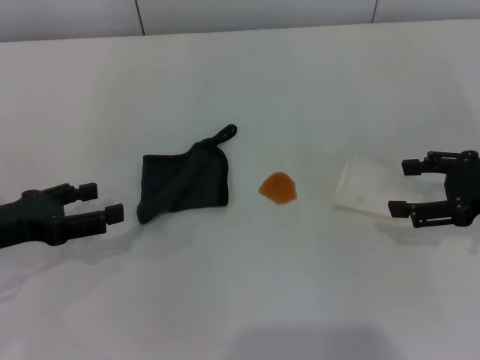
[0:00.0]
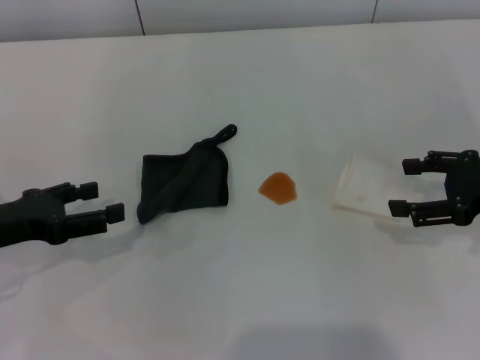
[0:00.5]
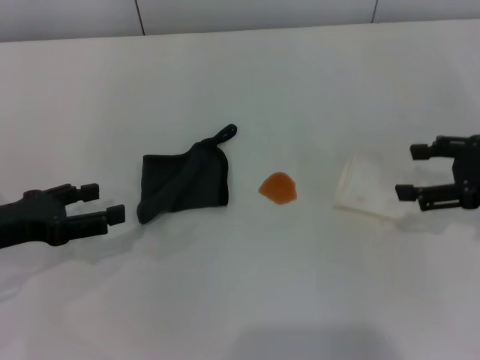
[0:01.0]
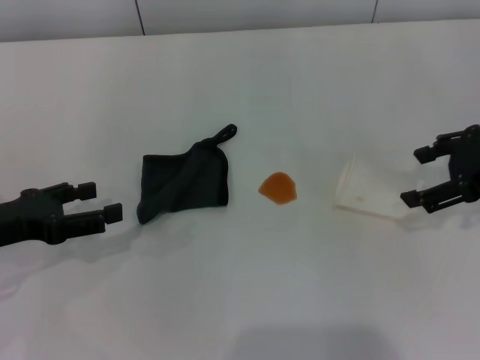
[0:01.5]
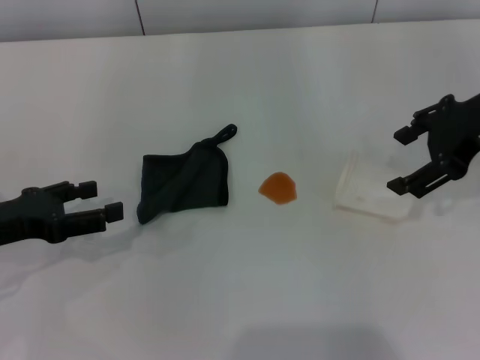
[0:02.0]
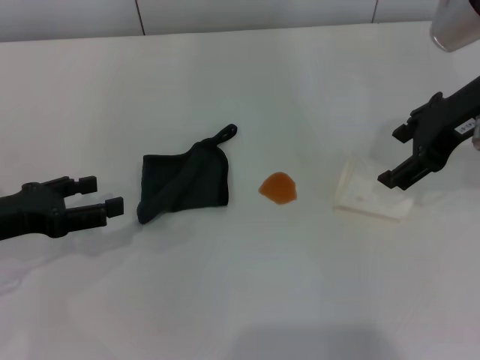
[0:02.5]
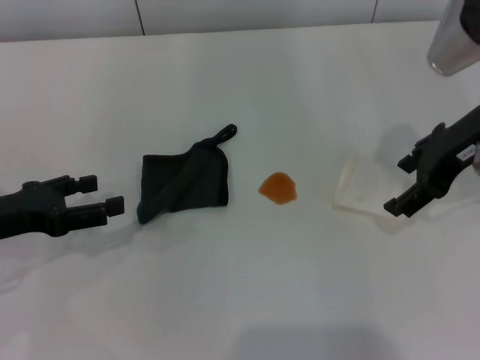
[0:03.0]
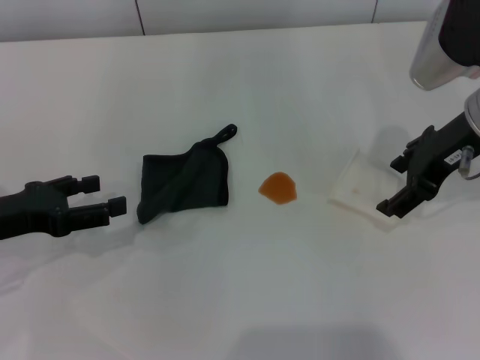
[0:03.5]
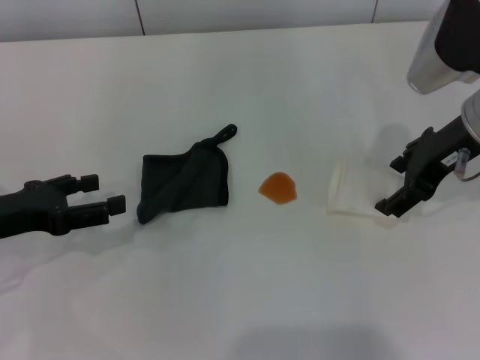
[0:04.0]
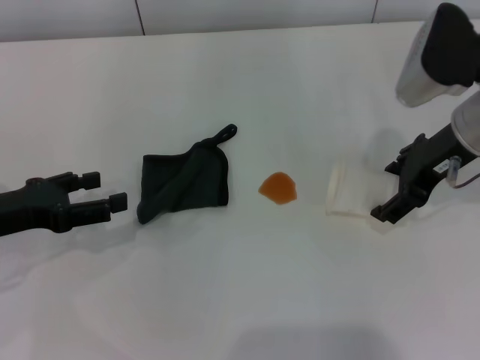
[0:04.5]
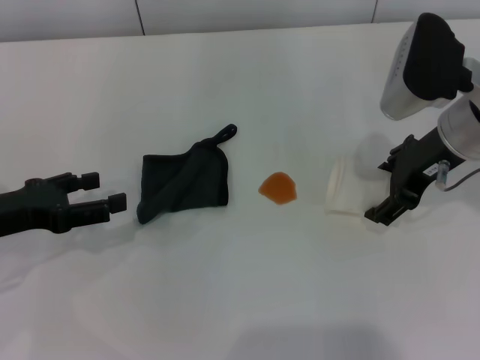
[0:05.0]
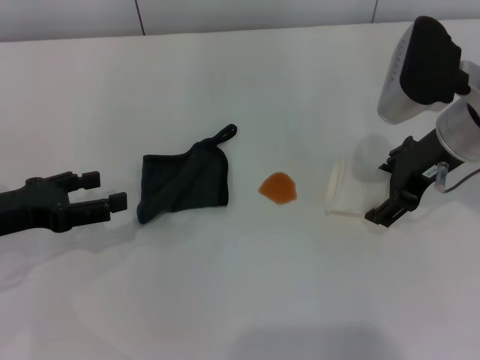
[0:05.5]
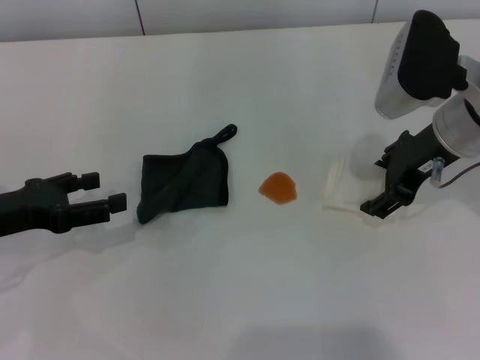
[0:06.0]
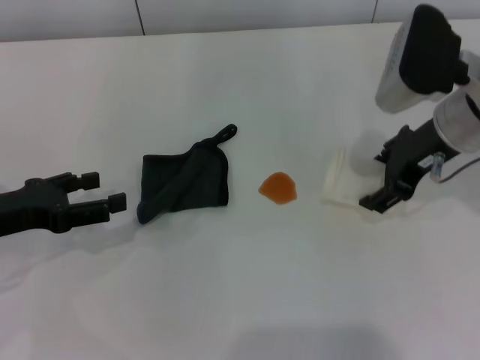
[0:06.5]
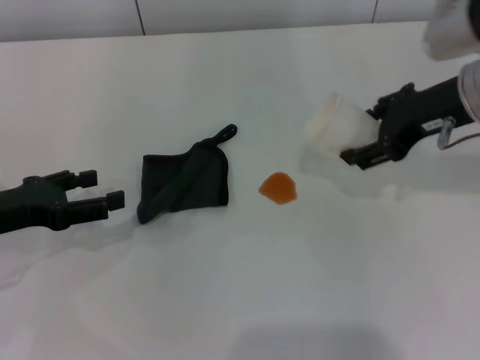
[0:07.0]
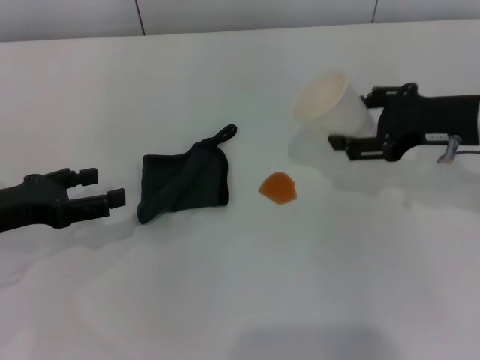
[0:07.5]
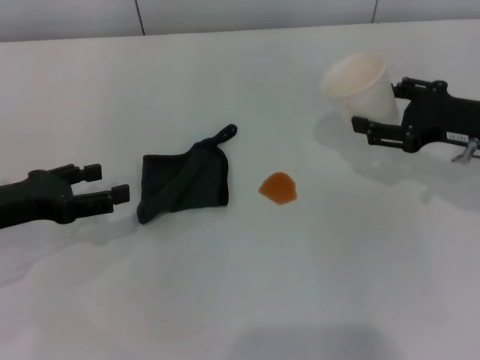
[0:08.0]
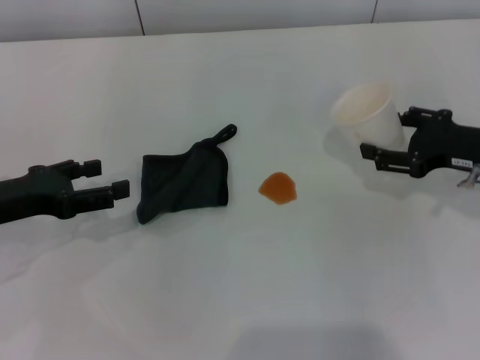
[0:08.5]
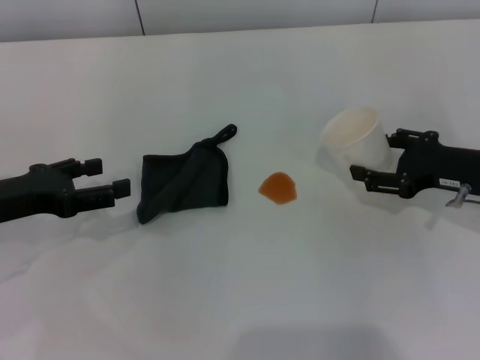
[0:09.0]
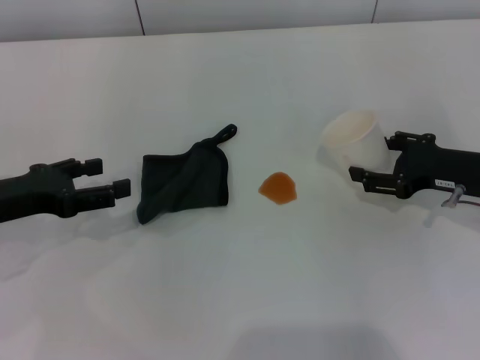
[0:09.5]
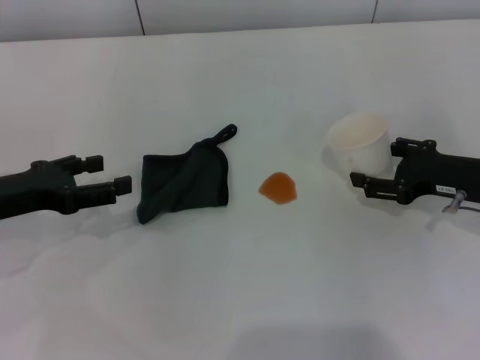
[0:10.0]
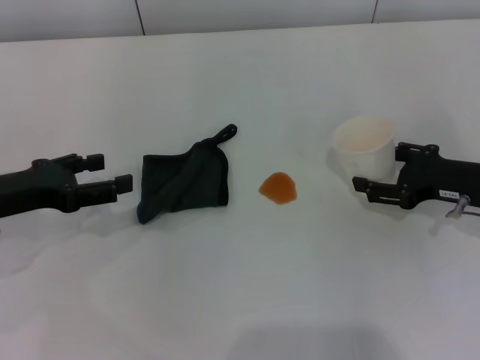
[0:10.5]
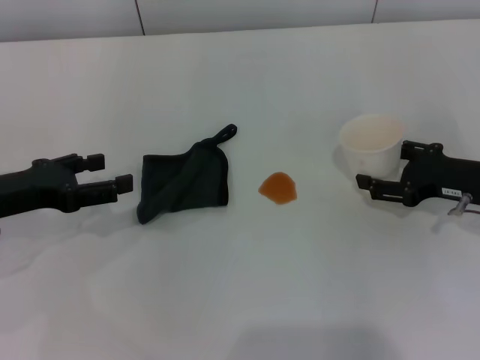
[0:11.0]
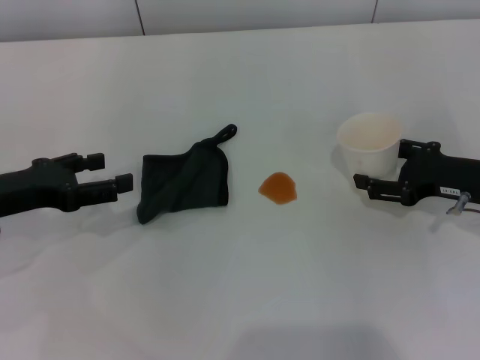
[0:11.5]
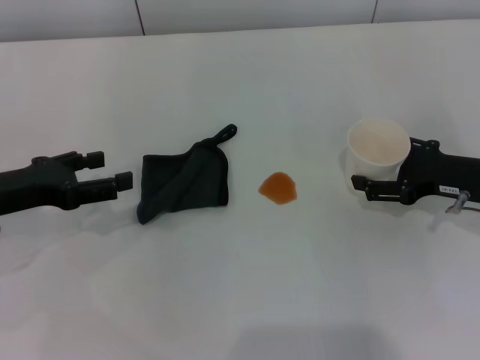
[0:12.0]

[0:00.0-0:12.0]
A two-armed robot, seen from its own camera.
Step, 0:00.0 to 0:06.0: Grasp the paper cup with the right gripper.
0:00.0 to 0:02.0: The right gripper goes roughly 15 cm upward and to the left.
0:02.0 to 0:04.0: The right gripper changes place by approximately 5 cm.
0:04.0 to 0:06.0: The right gripper closes up.
0:06.0 to 0:08.0: The right gripper shifts some 10 cm to the right.
0:08.0 to 0:10.0: The right gripper travels downward by approximately 5 cm.
0:10.0 to 0:12.0: The right gripper opens its fingers.

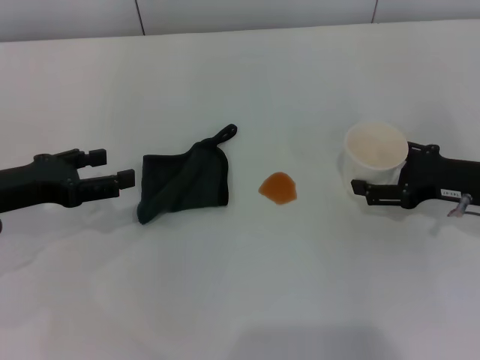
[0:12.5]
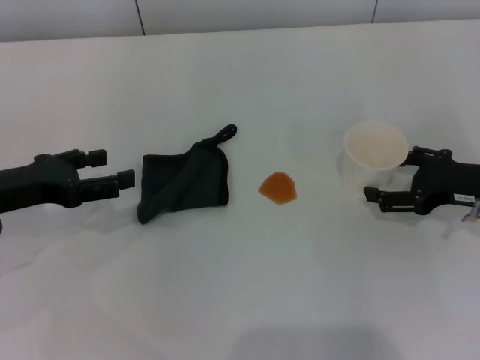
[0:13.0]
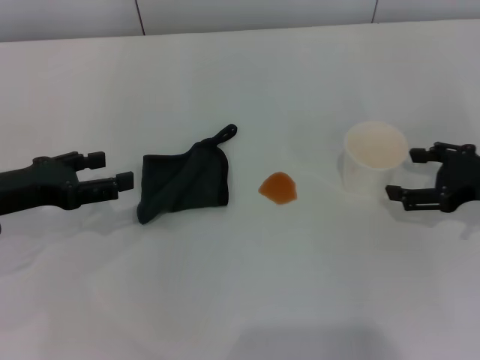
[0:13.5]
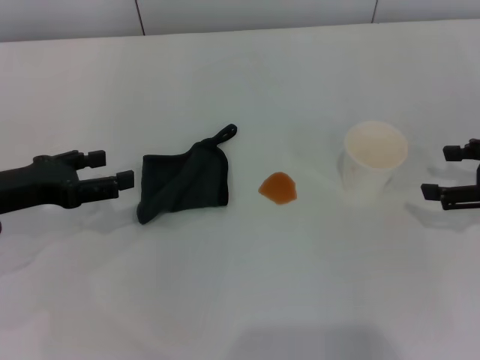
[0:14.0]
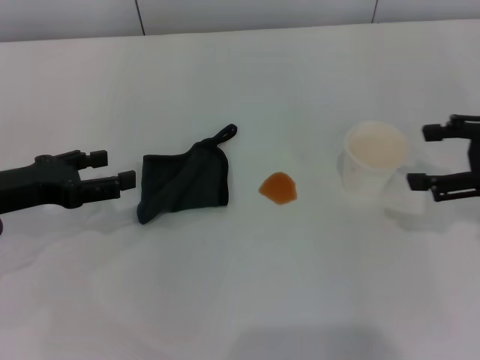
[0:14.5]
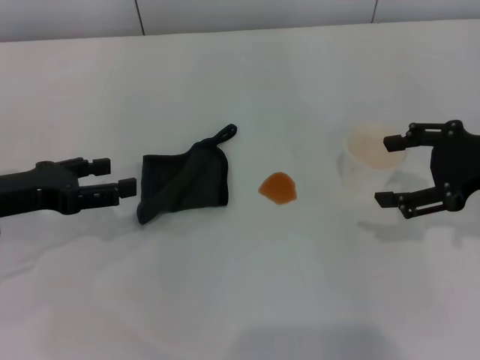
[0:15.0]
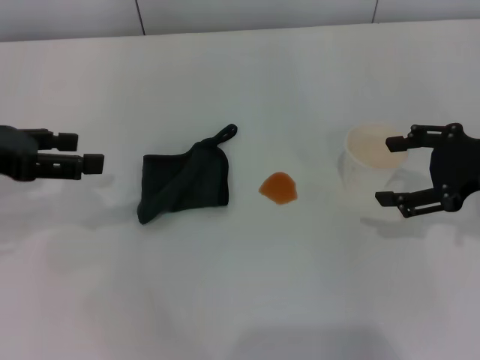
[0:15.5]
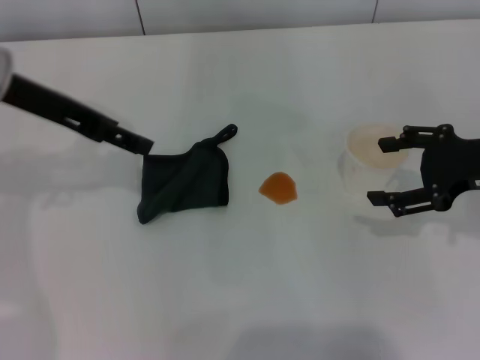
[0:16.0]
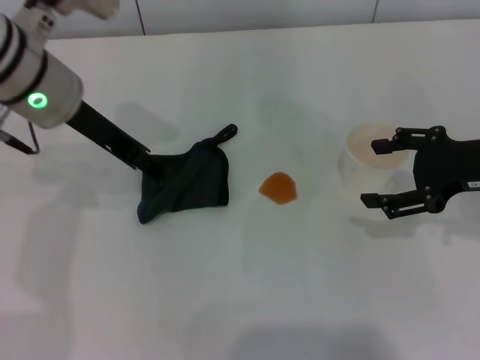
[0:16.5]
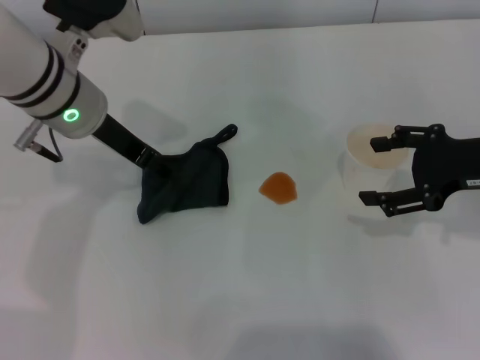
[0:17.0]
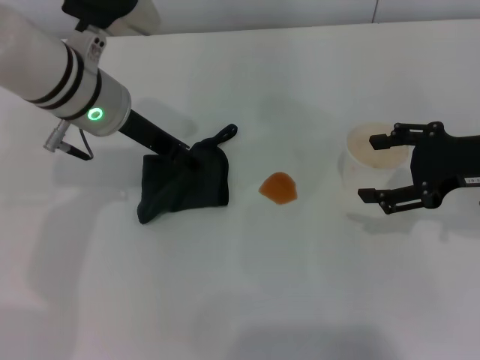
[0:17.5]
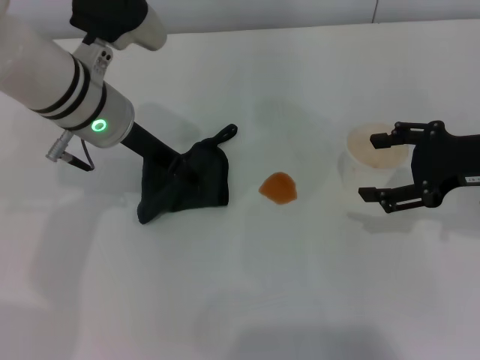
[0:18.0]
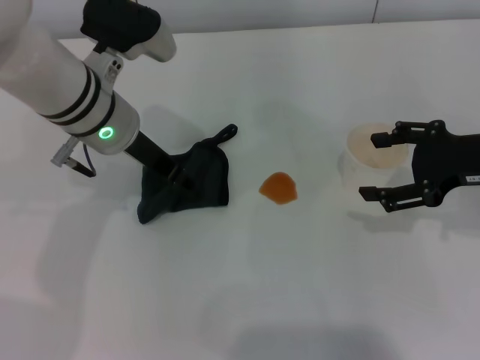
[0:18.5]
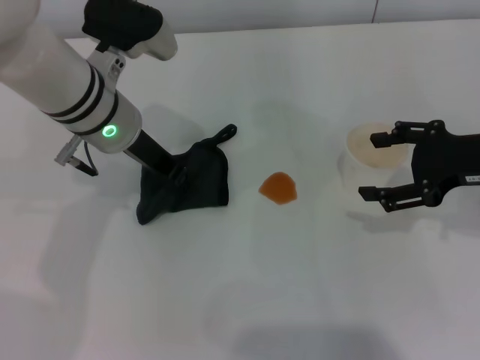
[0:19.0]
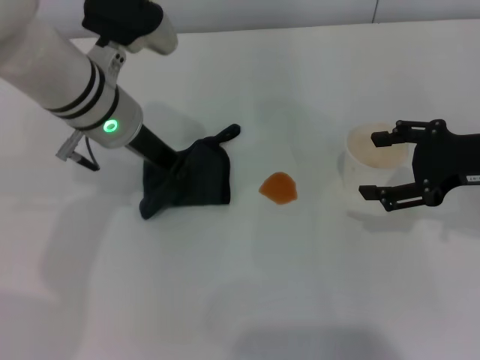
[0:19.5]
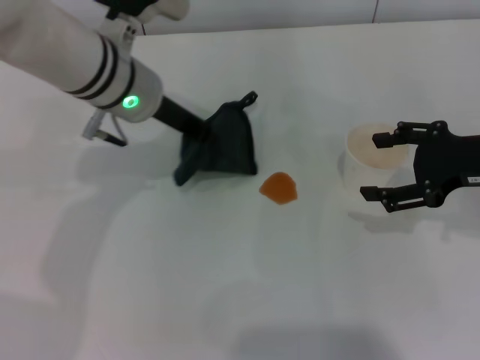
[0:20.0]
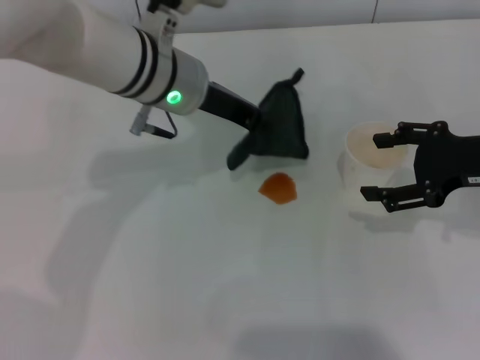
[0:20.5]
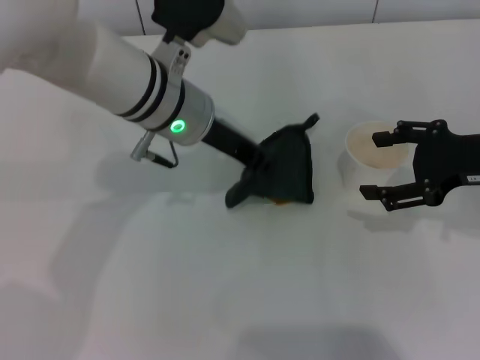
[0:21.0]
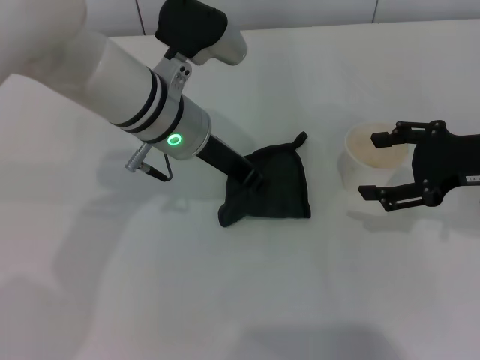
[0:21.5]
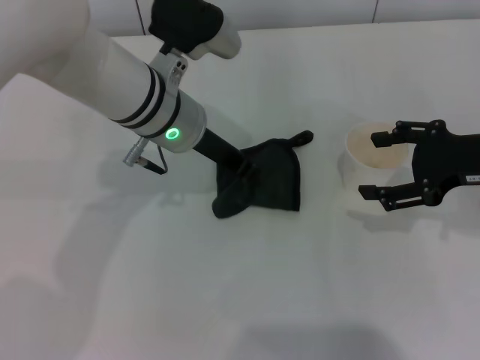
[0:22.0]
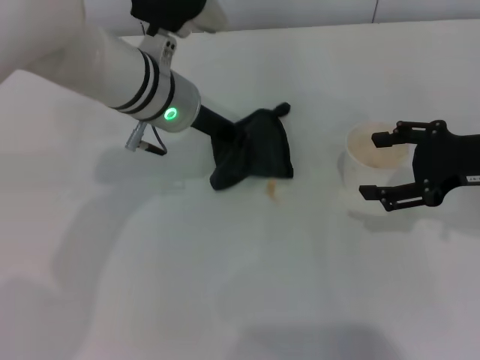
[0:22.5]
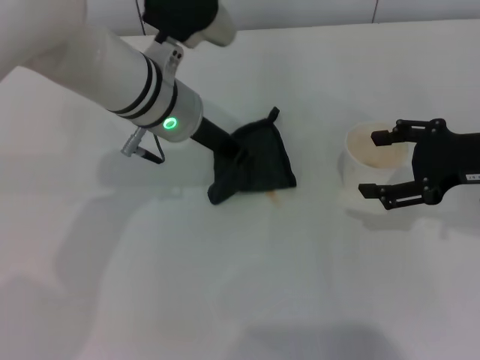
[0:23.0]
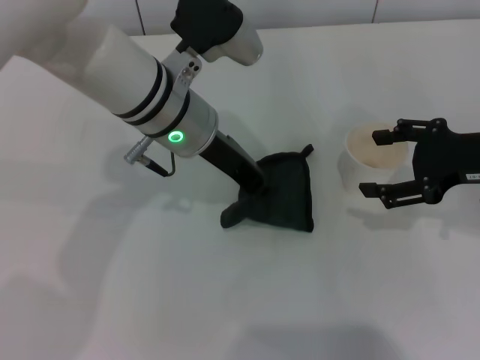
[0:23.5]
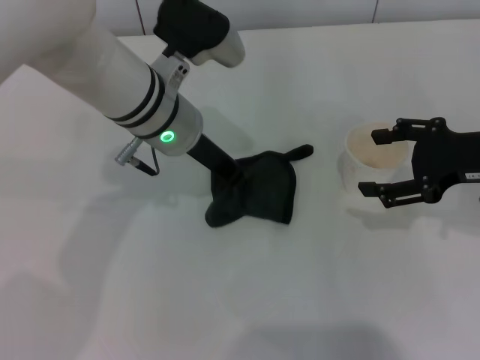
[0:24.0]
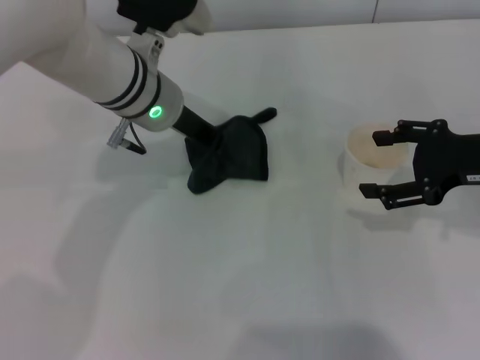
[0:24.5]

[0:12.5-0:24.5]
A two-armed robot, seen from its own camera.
Step, 0:14.0 to 0:19.5: Grasp the rag with the left gripper.
0:12.5 to 0:14.5: The right gripper moves upward, roughly 10 cm.
0:14.5 to 0:16.5: The right gripper changes place by approximately 5 cm; the left gripper is displaced to the right, upward and forward by roughly 20 cm.
0:16.5 to 0:18.5: The left gripper travels downward by about 5 cm.
0:18.5 to 0:20.5: The left gripper is displaced to the right by approximately 5 cm, and closes up.
0:20.5 to 0:22.5: The grippers stay close to where they were, moving slightly.

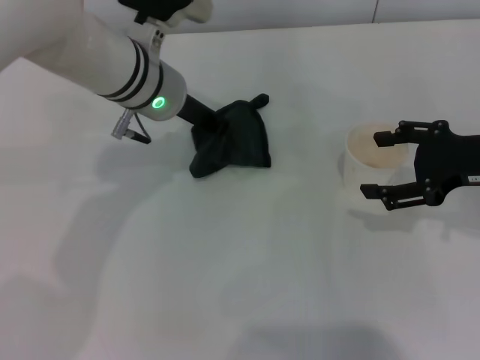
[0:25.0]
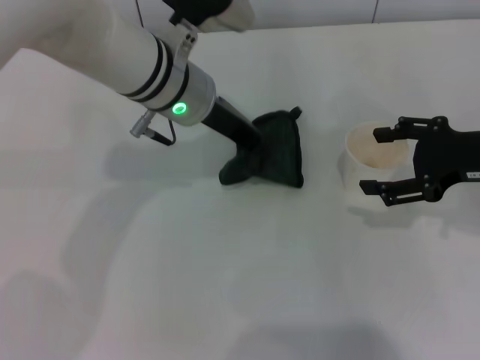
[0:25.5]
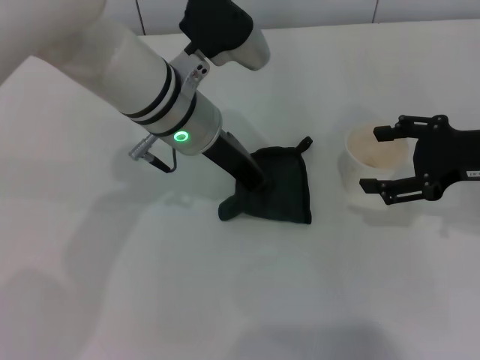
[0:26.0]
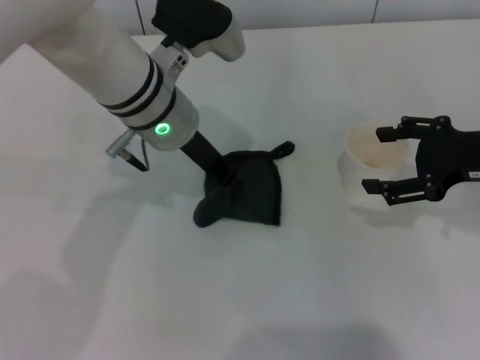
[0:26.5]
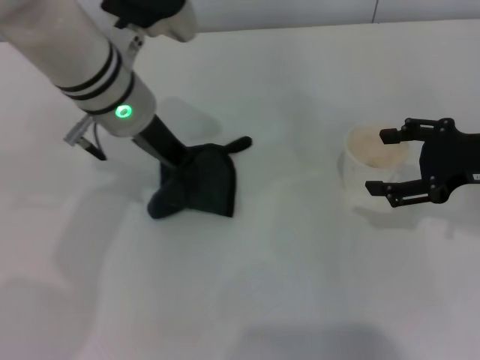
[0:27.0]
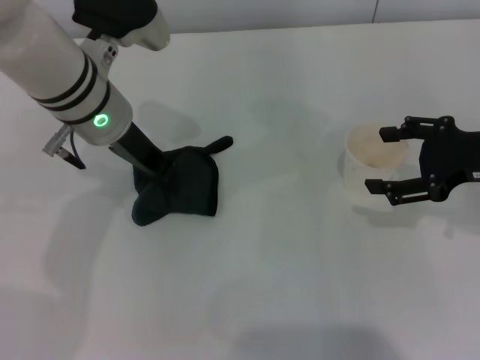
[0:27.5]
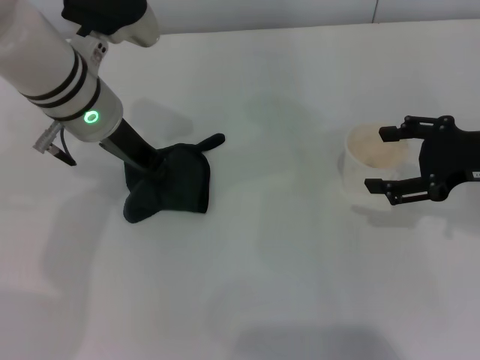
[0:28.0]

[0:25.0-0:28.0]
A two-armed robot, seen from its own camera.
0:26.5 to 0:28.0: The left gripper goes roughly 5 cm to the left.
